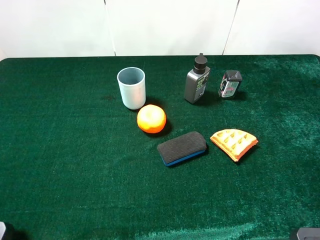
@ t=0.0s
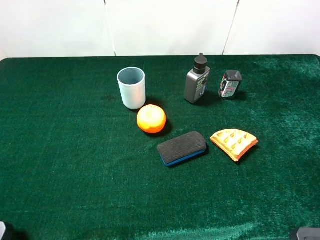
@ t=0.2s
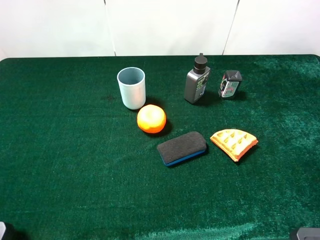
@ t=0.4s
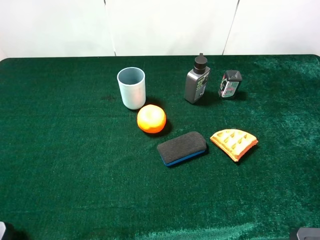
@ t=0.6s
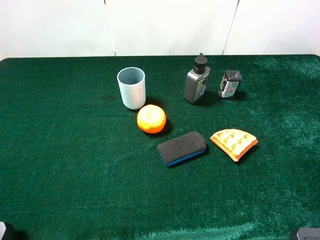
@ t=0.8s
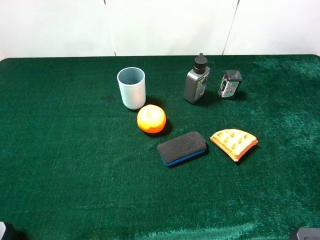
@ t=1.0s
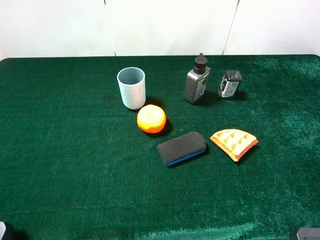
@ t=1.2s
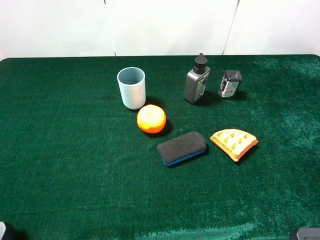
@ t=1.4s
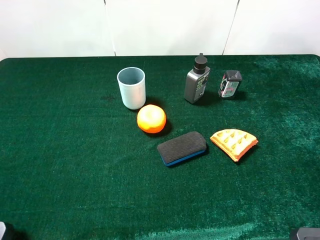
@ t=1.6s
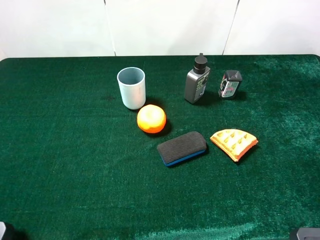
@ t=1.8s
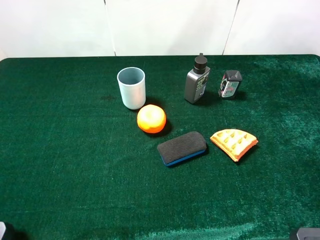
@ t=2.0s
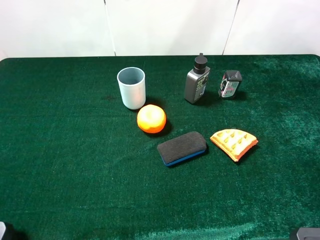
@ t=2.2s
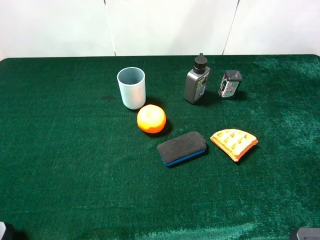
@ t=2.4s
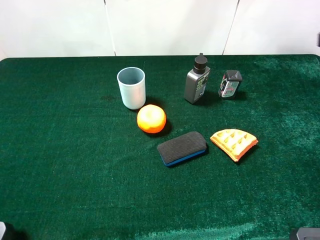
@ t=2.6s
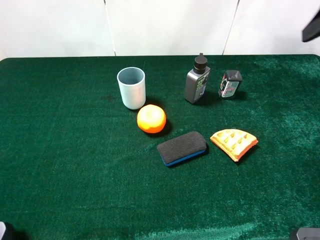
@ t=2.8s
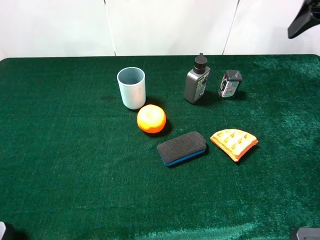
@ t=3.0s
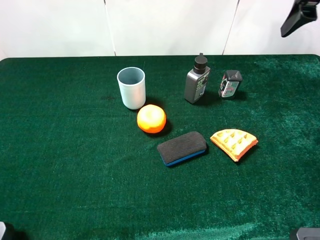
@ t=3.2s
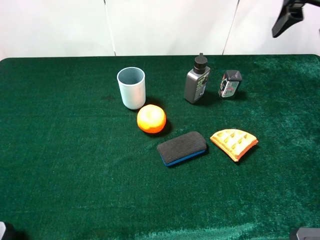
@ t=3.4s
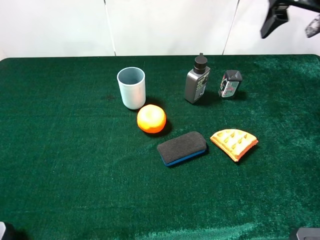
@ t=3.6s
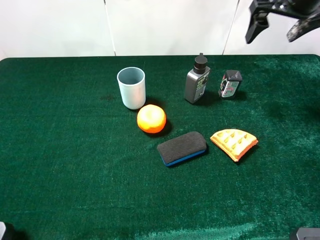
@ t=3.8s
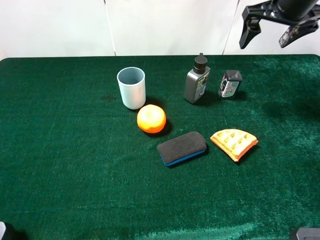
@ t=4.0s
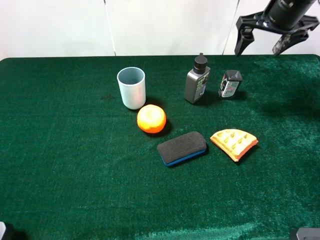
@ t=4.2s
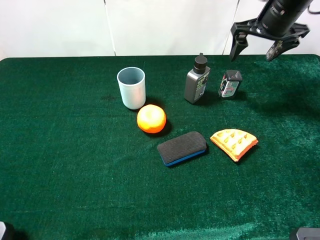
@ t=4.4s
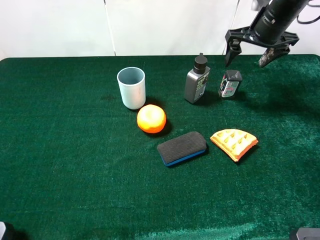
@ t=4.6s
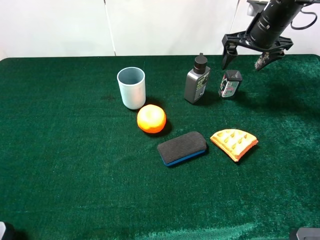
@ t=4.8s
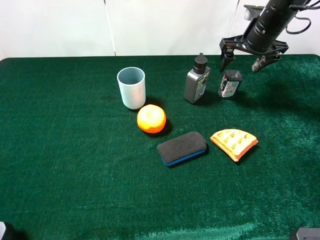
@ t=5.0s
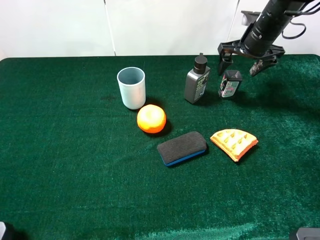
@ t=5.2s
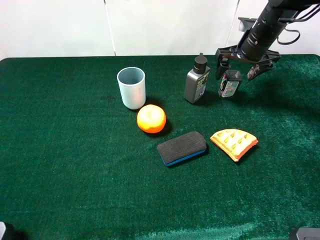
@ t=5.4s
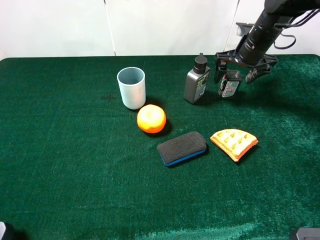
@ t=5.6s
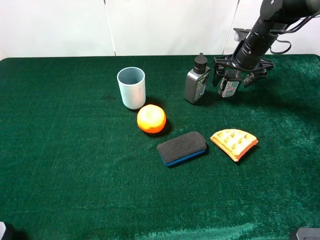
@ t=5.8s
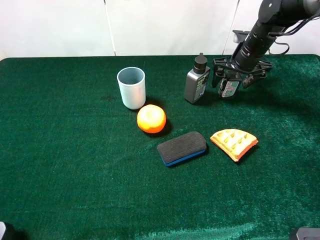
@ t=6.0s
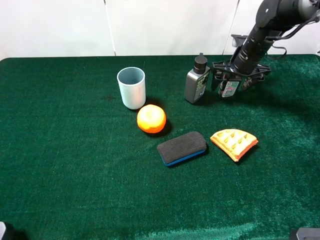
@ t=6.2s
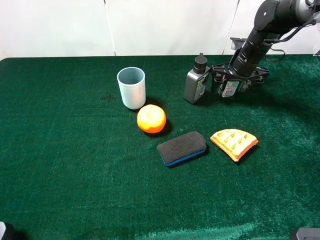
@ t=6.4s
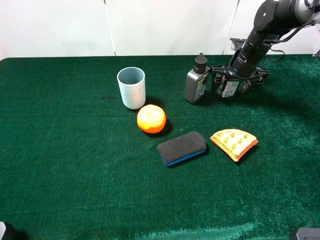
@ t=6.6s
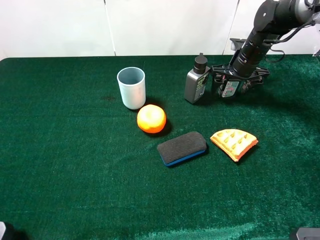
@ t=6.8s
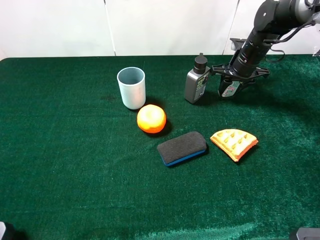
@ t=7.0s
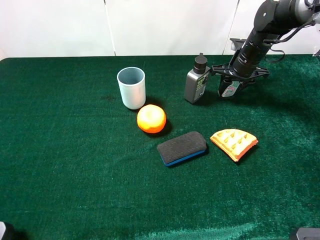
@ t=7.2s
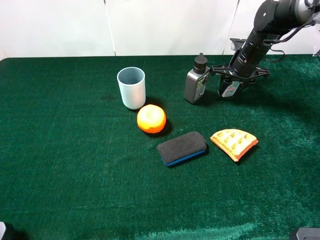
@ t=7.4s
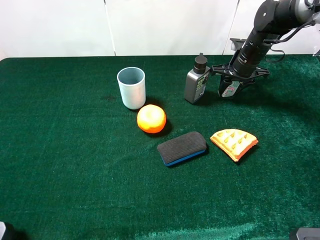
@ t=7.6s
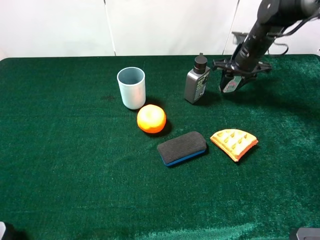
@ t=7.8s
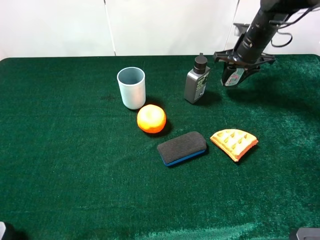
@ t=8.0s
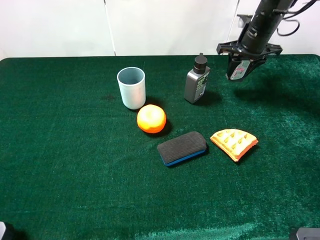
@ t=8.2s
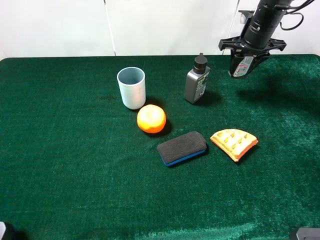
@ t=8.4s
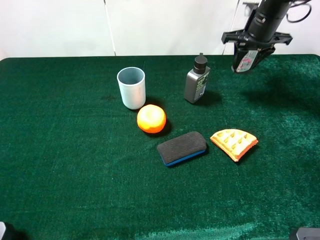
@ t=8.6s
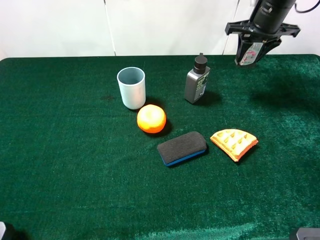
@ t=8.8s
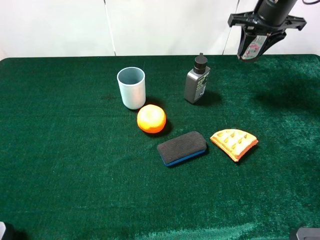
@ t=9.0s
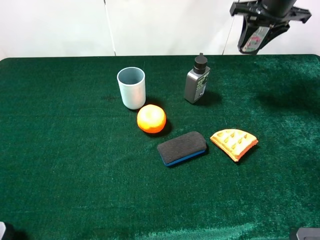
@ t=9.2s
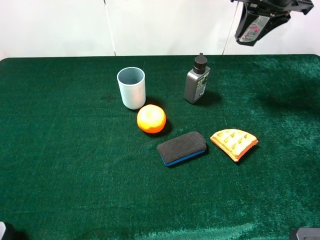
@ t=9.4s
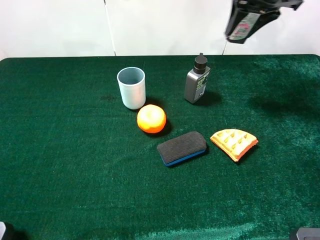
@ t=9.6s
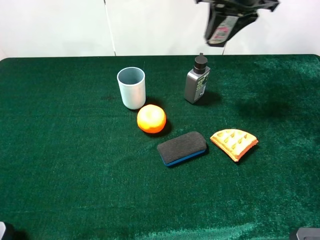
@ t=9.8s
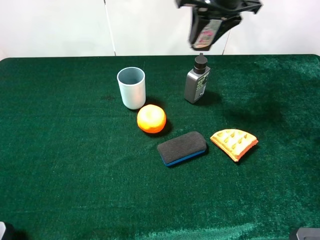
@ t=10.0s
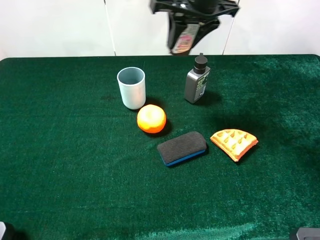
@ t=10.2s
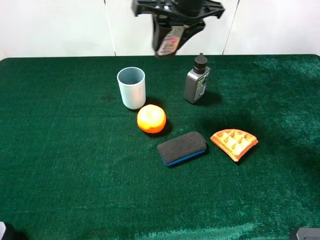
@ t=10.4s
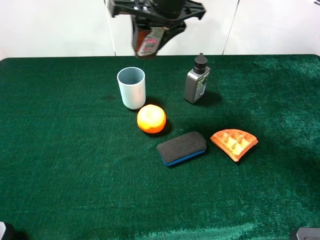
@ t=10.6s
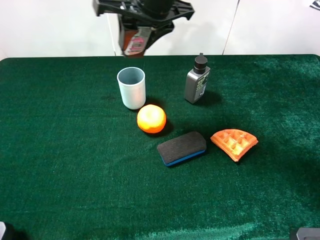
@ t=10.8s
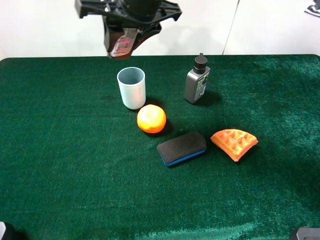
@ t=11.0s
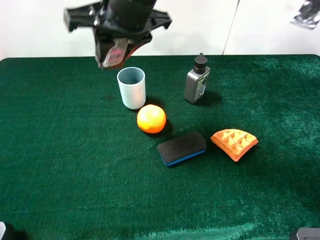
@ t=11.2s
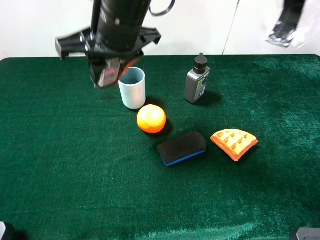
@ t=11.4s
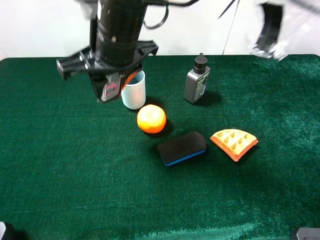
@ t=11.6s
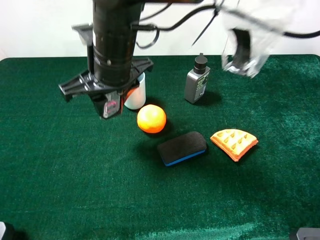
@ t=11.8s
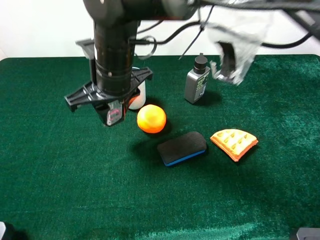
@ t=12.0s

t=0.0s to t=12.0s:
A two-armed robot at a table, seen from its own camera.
Task of the whole recording: the gripper move the object.
Step, t=0.0s to t=7.2s: Grasp the square facial square with the right gripper.
t=1.6s to t=3.0s: The right gripper goes roughly 25 cm forward.
t=3.0s to t=4.4s: The right gripper shifts roughly 15 cm forward, downward and to the left.
t=4.4s to t=6.0s: The right gripper moves downward, approximately 10 cm.
t=6.0s to t=7.6s: The right gripper closes its fingers.
t=7.6s to t=9.0s: The right gripper goes approximately 15 cm upward.
t=9.0s to t=10.4s: The right gripper shifts some 20 cm to the left and backward.
t=10.4s to t=12.0s: The right gripper travels to the left, downward and backward by approximately 15 cm.

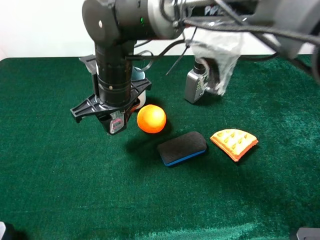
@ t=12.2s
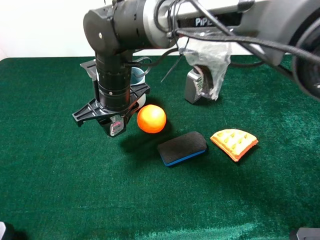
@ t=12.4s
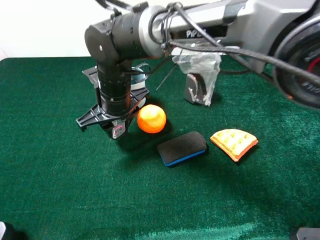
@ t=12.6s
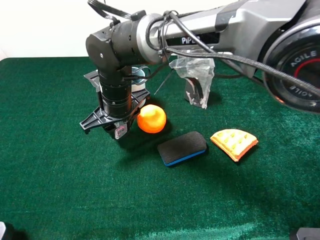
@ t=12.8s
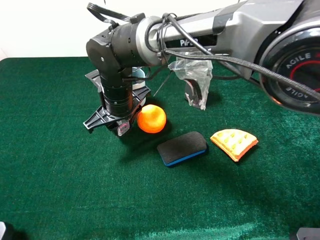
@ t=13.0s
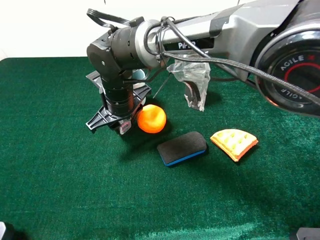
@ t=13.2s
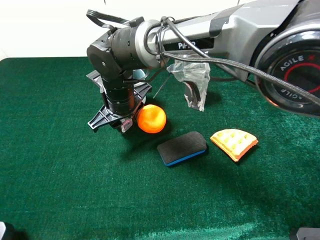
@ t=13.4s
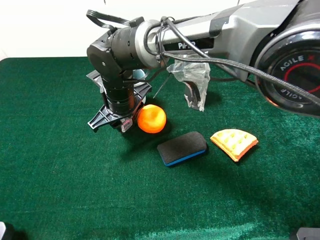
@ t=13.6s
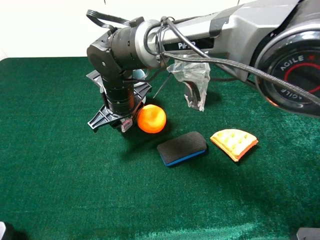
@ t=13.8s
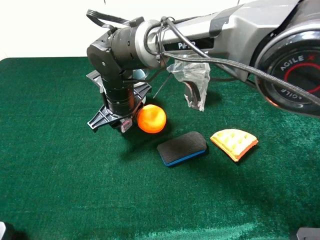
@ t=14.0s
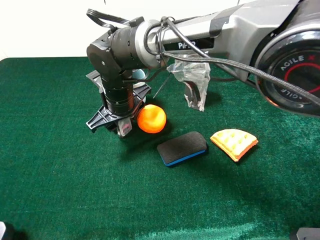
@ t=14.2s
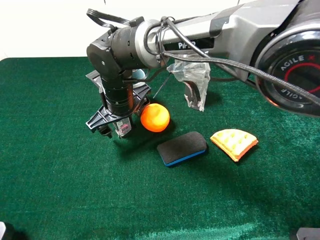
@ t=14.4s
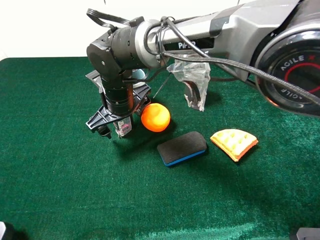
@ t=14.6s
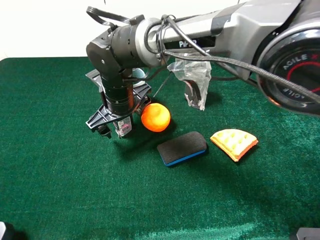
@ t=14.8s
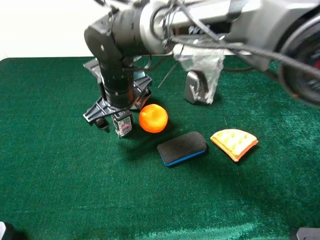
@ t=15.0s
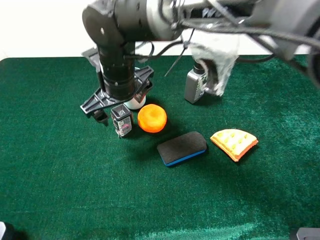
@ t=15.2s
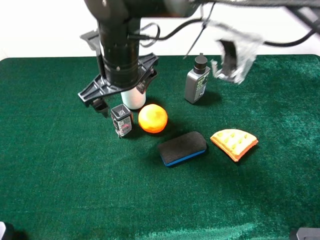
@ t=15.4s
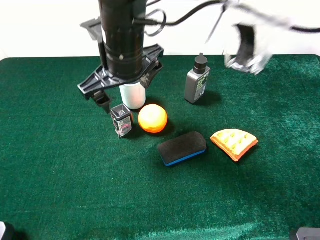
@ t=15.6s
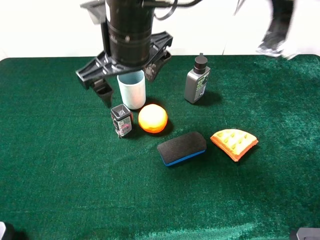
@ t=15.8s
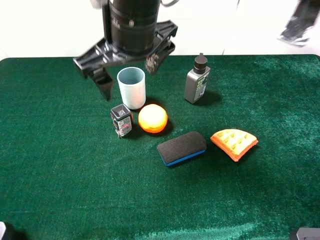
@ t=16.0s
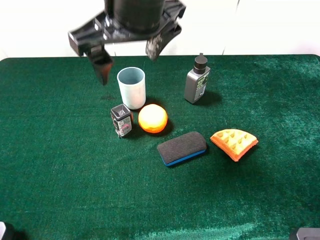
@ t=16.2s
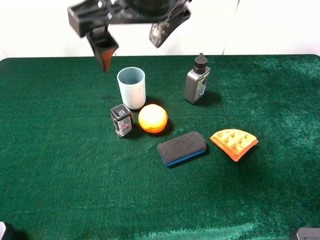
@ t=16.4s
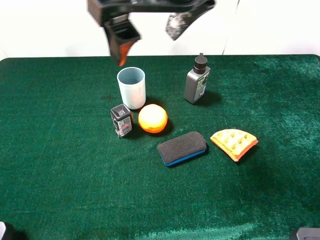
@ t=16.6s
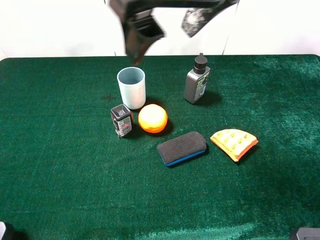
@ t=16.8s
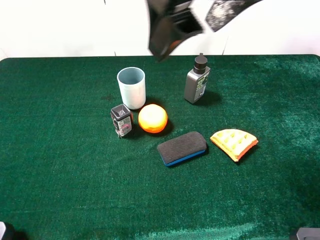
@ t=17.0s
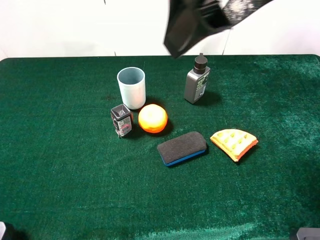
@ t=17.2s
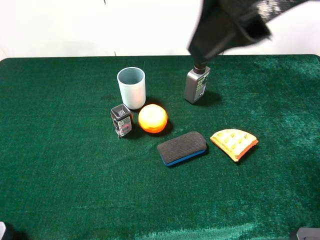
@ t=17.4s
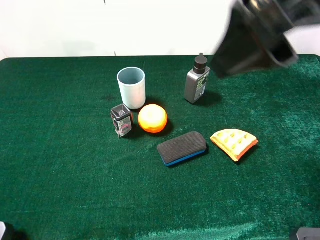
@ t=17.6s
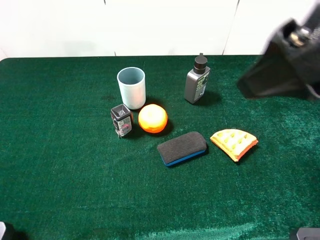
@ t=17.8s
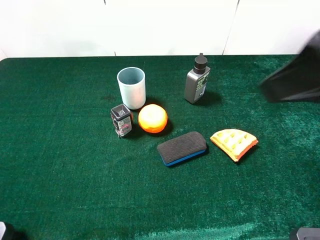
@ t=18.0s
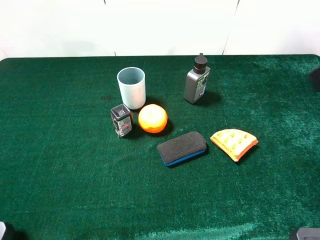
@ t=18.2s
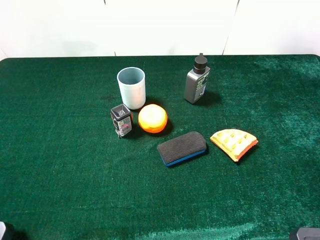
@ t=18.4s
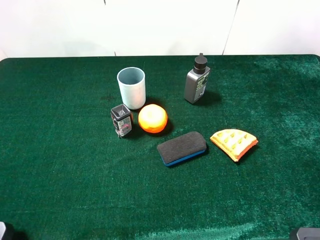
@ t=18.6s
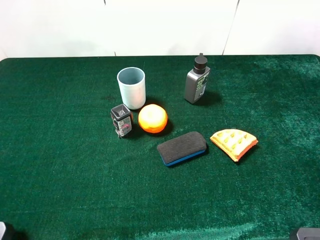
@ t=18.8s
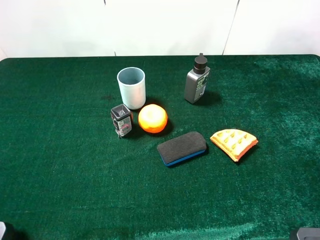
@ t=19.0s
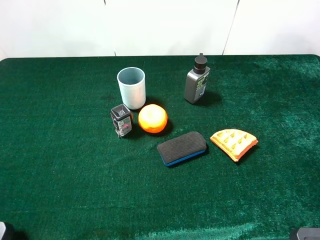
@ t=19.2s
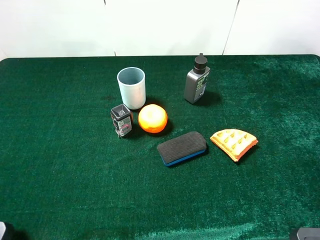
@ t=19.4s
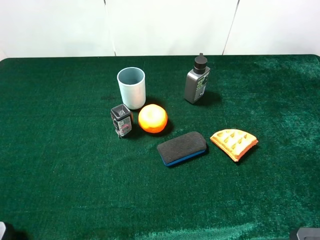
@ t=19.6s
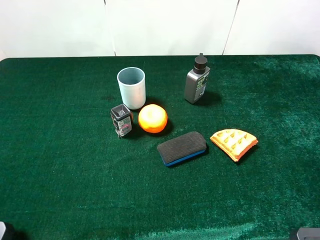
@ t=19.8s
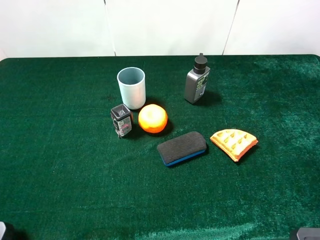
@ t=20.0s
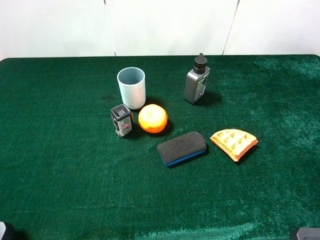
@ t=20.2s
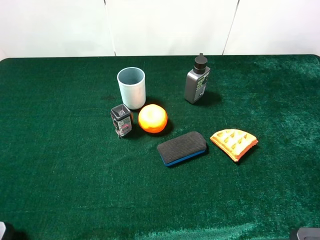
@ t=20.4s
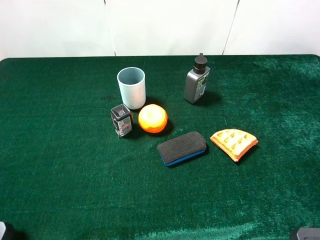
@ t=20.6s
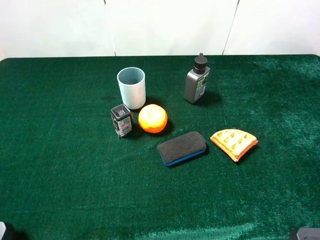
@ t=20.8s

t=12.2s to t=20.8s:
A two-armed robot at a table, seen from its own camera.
Task of the whole recording: the gripper move the object.
Step, t=12.2s to t=15.2s: Place the hard facial earser on the table with the right gripper.
t=12.2s to t=13.6s: The right gripper changes place by approximately 5 cm.
t=13.6s to t=15.0s: The right gripper opens up.
t=15.0s to t=16.6s: The right gripper goes approximately 25 cm upward and to the right.
t=16.6s to t=18.0s: The right gripper travels to the right and backward by approximately 20 cm.
t=18.0s to t=19.4s: The right gripper goes approximately 20 cm to the right, backward and downward.
